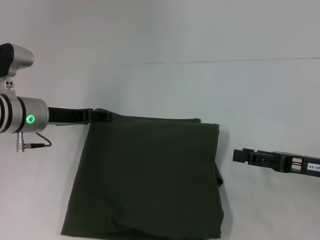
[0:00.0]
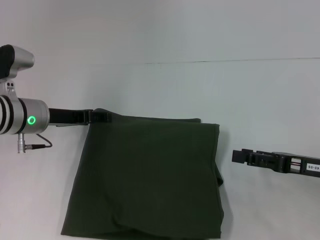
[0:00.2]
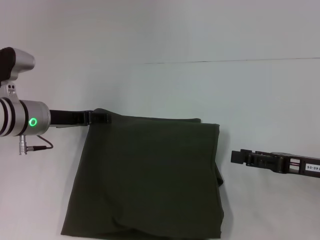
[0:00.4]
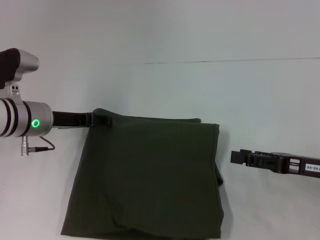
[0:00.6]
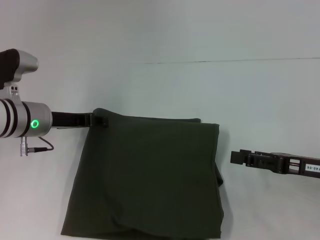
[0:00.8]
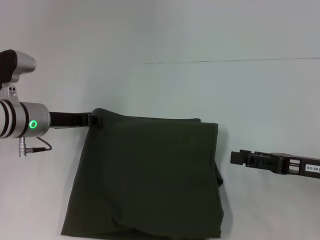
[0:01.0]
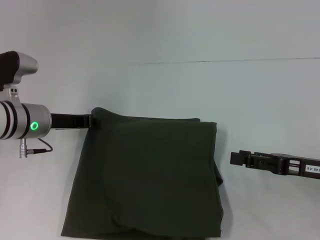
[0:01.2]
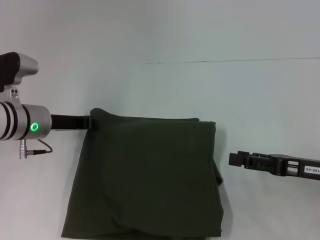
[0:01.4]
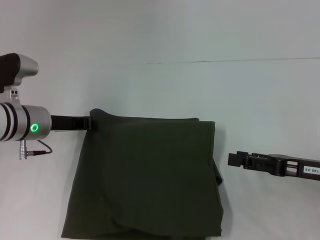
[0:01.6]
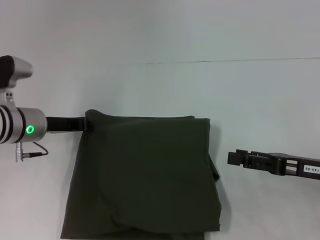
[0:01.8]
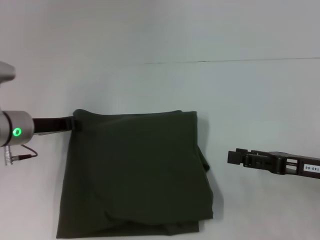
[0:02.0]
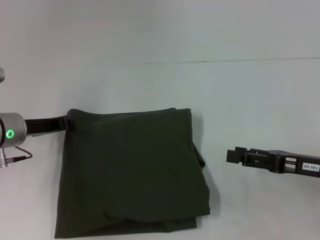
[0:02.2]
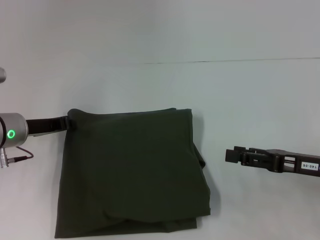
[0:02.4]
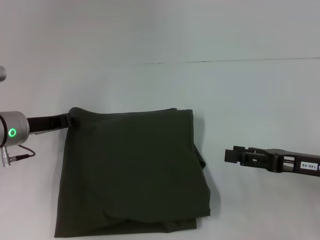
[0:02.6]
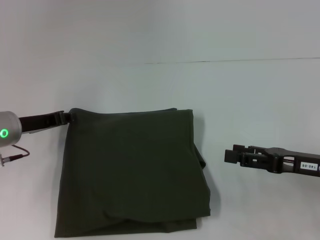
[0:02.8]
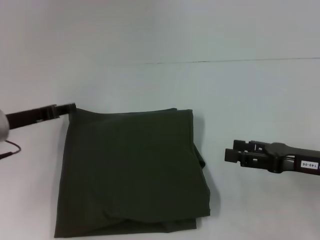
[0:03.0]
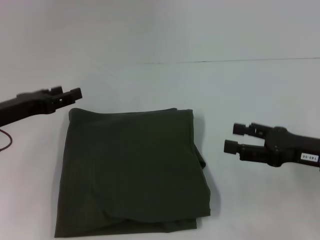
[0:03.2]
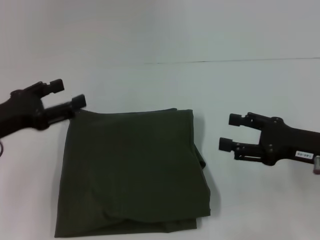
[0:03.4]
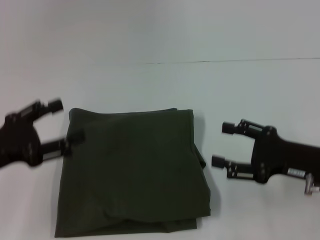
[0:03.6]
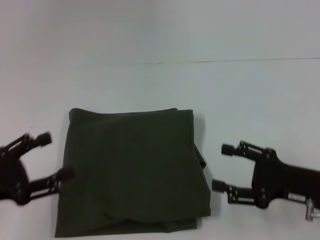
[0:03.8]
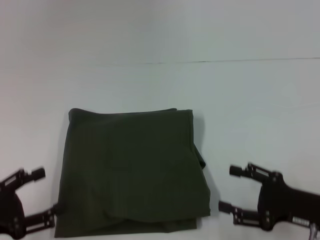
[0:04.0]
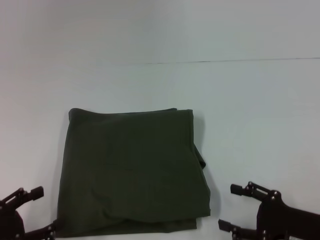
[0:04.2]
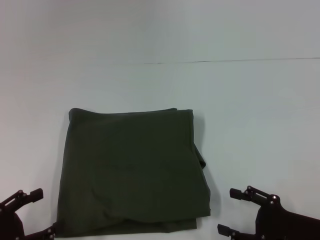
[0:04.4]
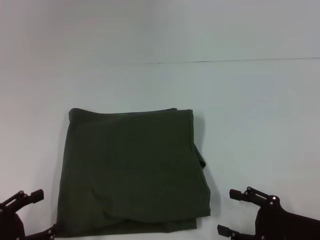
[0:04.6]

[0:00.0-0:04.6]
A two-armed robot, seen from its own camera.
0:00.0 to 0:01.6: The left gripper closes up.
0:01.6 to 0:03.0: The left gripper goes some 5 cm to the left.
0:03.0 to 0:04.6: The right gripper shifts approximately 10 cm backward and downward, while the left gripper moves backward, about 20 cm, and opens up.

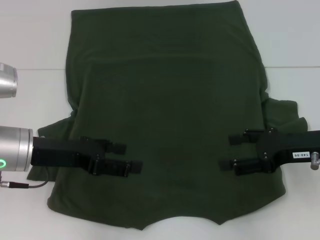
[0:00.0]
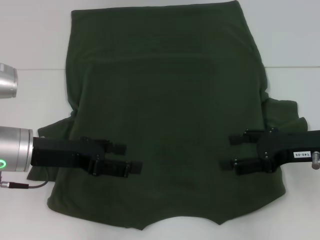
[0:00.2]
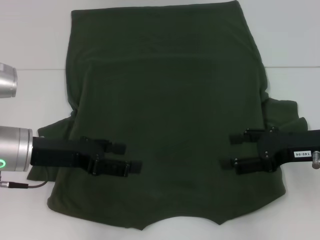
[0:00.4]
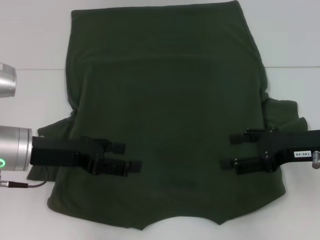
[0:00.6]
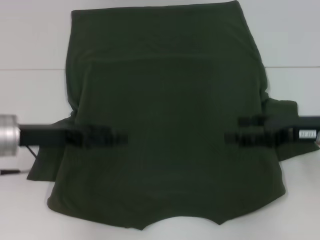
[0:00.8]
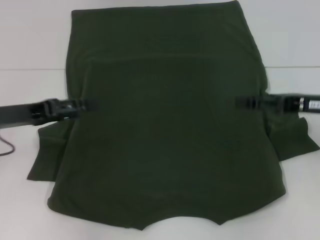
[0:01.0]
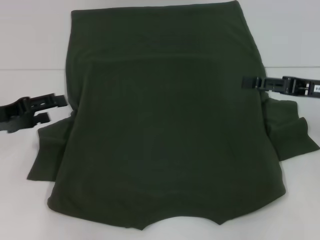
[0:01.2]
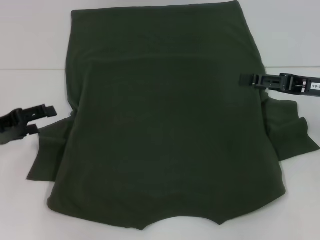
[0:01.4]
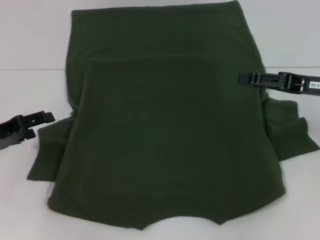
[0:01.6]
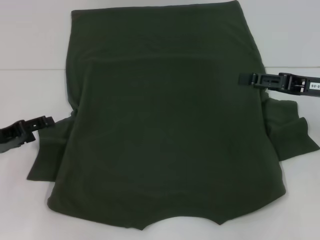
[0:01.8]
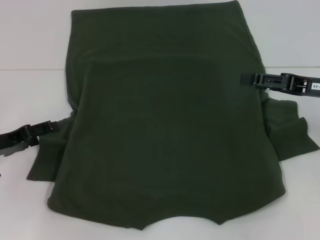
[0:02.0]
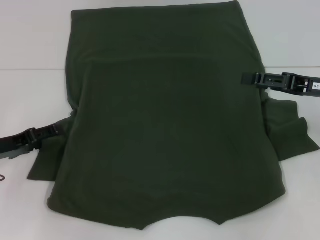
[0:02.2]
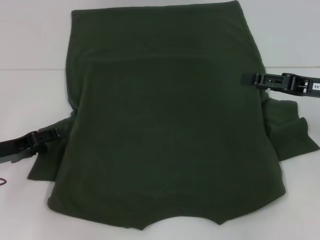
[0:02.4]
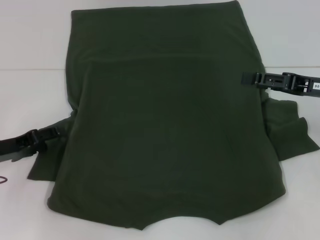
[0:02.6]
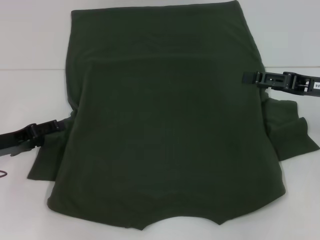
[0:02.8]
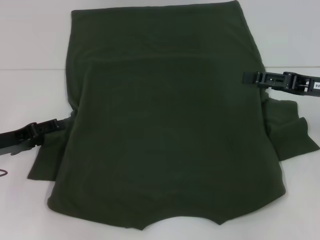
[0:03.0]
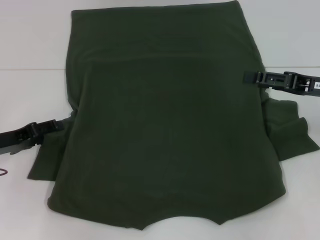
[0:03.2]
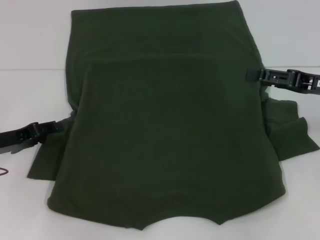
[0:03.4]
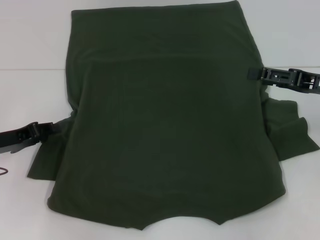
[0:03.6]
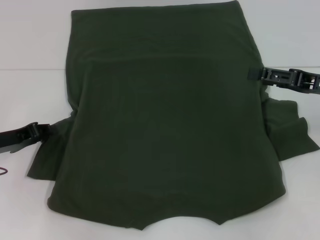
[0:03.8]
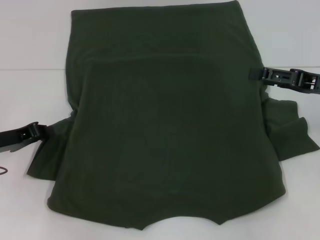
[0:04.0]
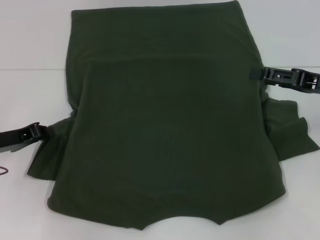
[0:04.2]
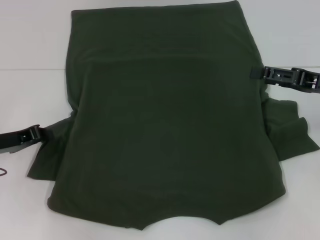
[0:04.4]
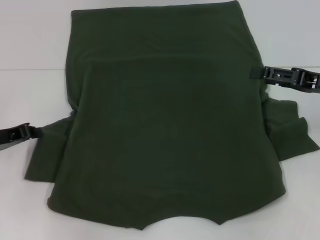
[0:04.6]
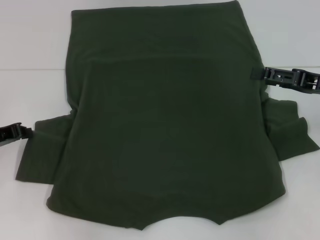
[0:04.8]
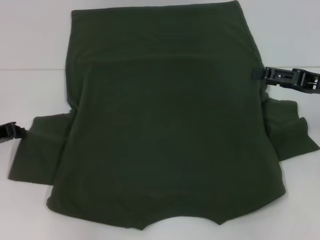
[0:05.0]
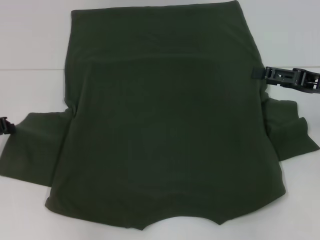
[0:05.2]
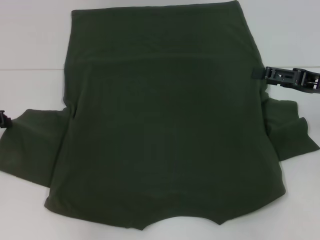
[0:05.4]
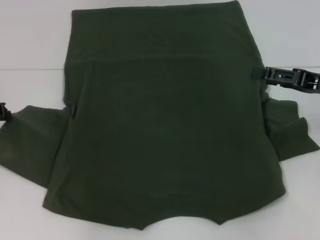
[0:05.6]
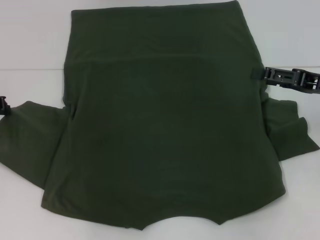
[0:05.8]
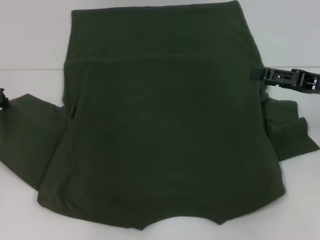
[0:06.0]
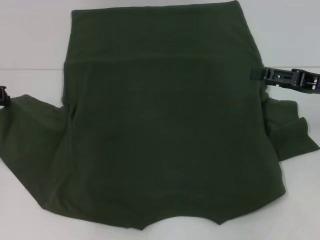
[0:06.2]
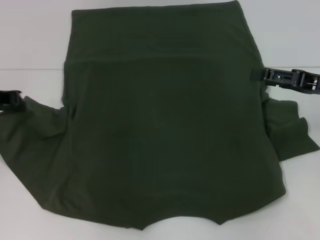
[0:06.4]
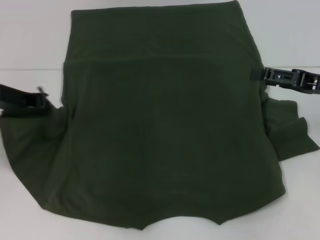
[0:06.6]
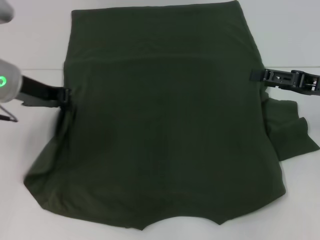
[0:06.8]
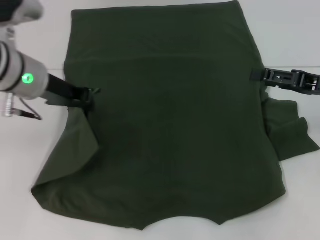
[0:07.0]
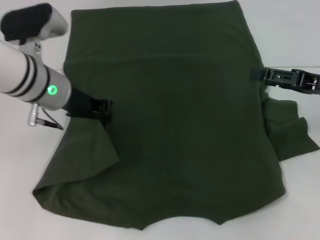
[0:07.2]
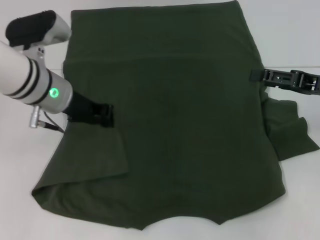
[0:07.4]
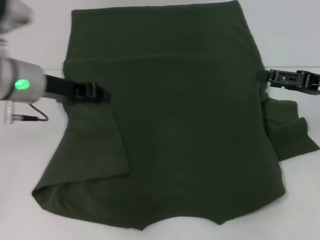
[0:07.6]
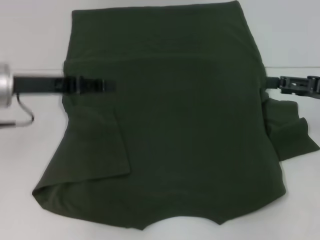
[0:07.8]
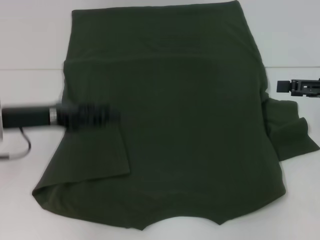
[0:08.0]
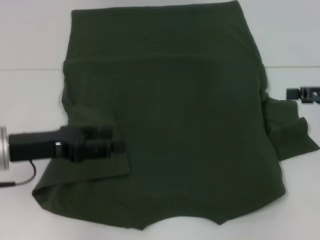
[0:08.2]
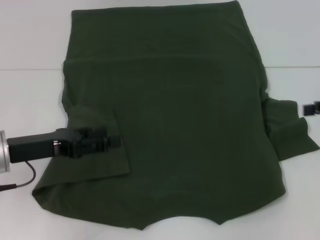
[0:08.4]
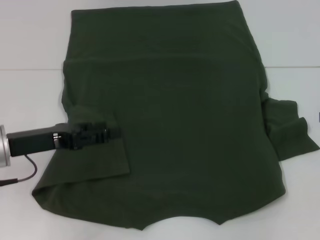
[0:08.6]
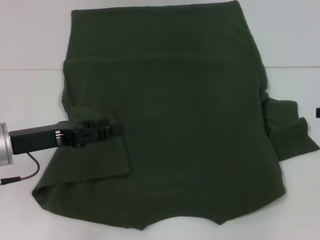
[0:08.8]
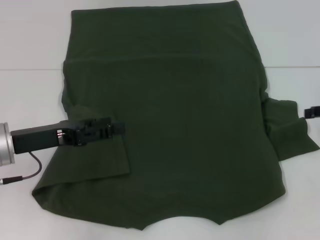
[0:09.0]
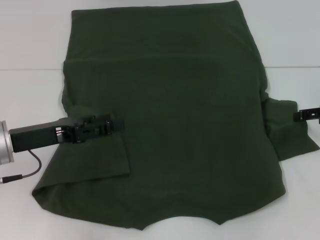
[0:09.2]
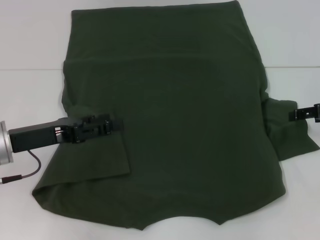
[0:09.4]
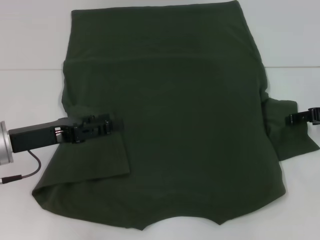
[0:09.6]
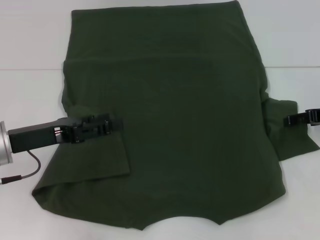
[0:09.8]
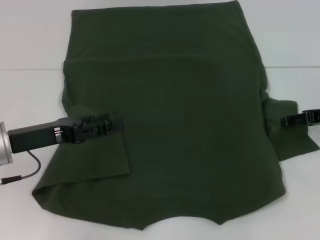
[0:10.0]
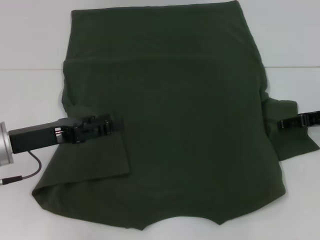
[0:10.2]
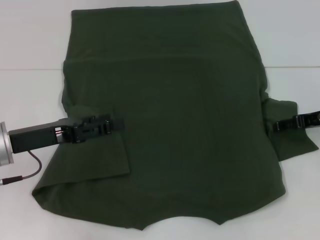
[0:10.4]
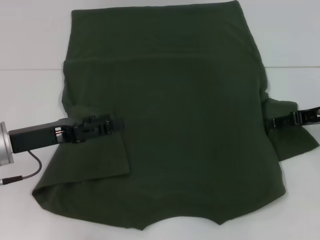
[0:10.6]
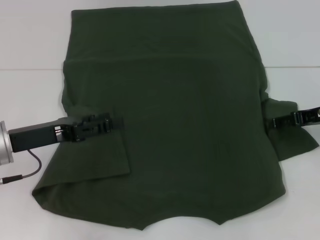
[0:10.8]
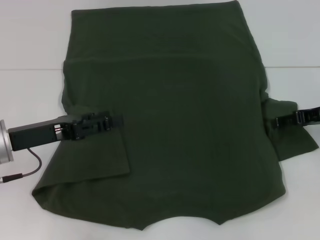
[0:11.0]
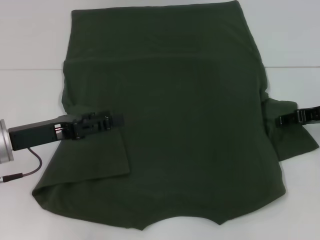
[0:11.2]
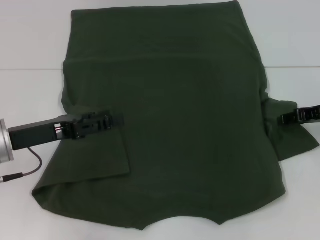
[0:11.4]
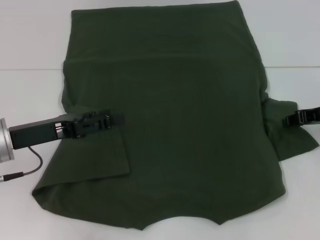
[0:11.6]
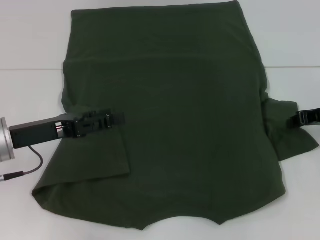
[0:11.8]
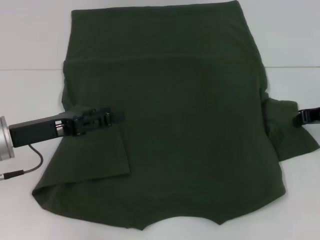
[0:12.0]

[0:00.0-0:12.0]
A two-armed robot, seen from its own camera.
Step, 0:00.0 to 0:07.8: Fold the bottom left sleeve with your left hand.
0:00.0 to 0:01.6: The left gripper travels to the left by some 10 cm. The right gripper ends up some 5 cm from where it was.
0:01.6 to 0:03.0: The grippers move only a little.
0:03.0 to 0:04.4: The left gripper closes up.
0:04.4 to 0:06.0: The left gripper shifts about 10 cm upward and forward.
0:06.0 to 0:07.6: The left gripper is displaced to the right by approximately 10 cm.
0:07.6 to 0:09.0: The left gripper goes about 10 cm backward and downward, and opens up. Meanwhile the right gripper moves to the right, approximately 5 cm.
0:09.0 to 0:10.4: The right gripper travels to the left by about 5 cm.
0:10.4 to 0:12.0: The right gripper closes.

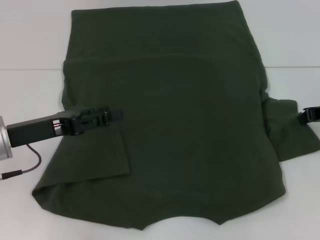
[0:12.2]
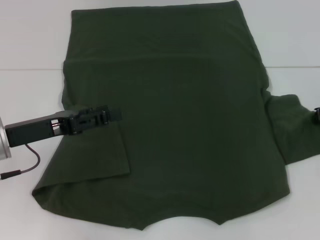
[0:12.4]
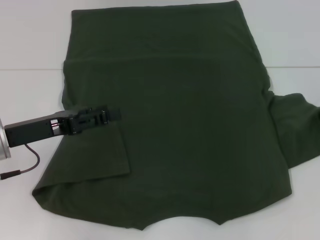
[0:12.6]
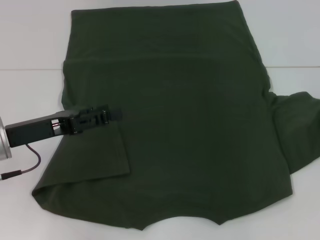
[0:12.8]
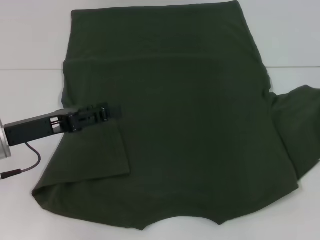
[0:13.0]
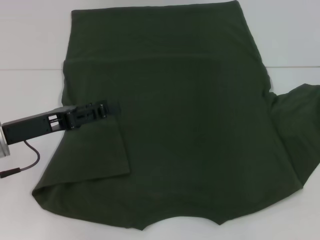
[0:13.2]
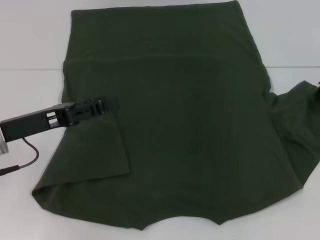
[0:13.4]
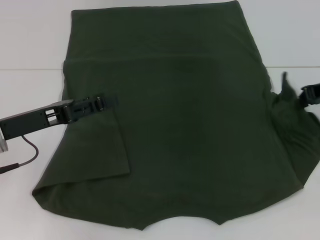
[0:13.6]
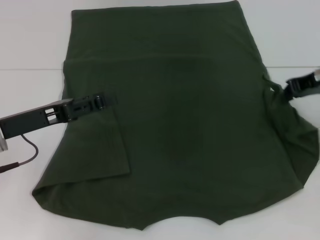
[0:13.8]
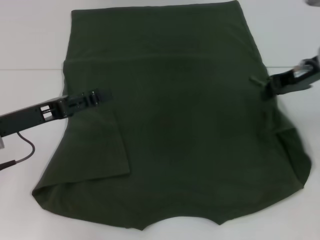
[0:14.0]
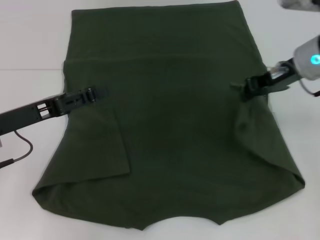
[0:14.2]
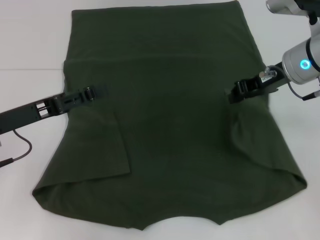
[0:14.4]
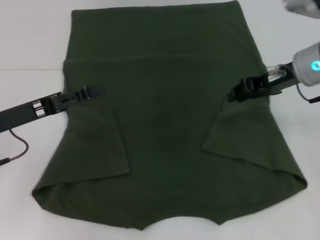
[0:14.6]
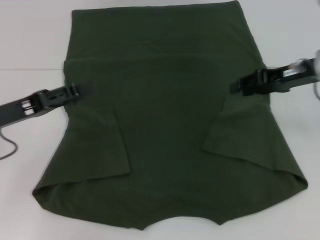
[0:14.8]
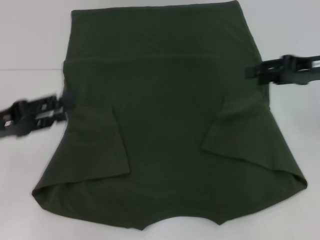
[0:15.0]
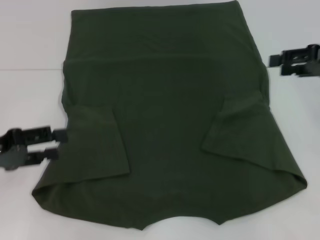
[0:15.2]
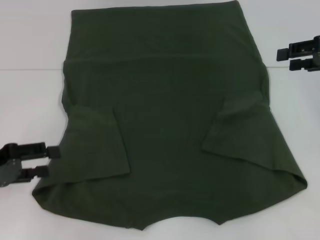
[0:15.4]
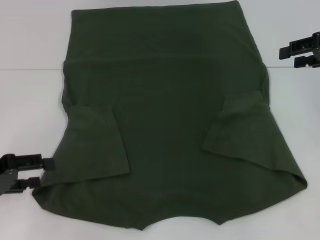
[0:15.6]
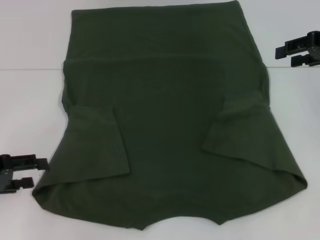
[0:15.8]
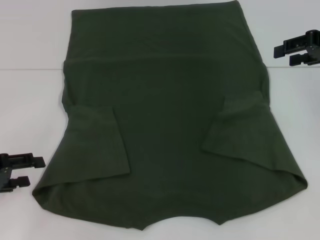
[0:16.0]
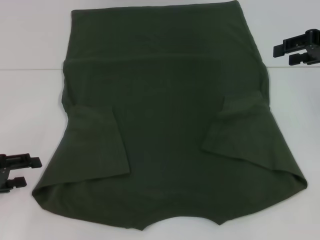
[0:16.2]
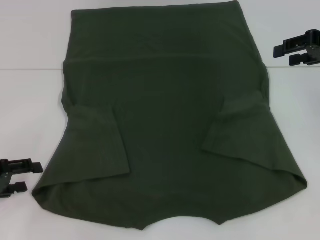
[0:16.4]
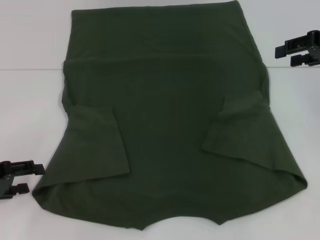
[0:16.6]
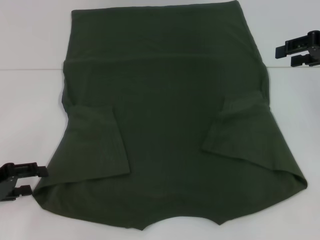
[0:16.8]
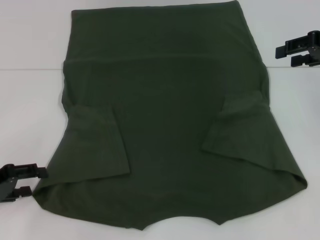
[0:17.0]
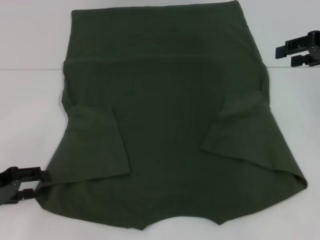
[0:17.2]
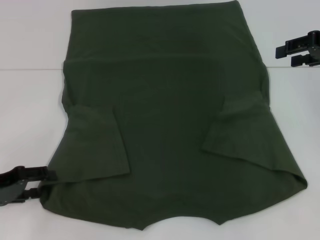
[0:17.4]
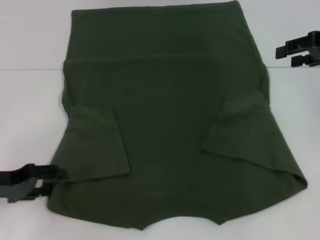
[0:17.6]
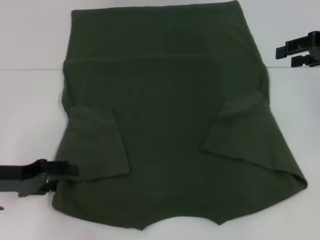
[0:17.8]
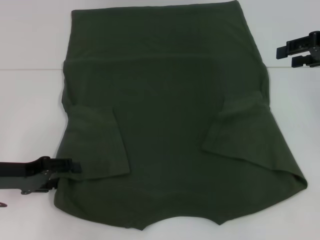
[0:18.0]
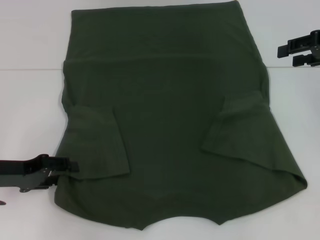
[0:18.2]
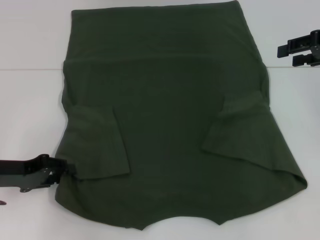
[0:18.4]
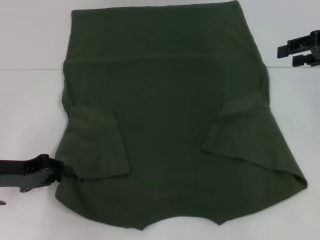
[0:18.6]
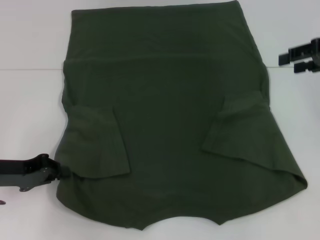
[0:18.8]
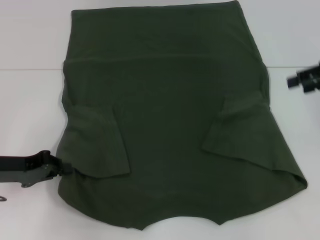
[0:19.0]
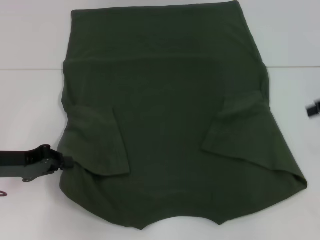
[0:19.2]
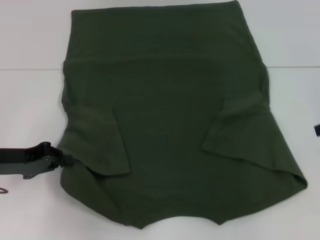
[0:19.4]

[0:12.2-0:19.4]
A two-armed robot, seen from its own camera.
Step, 0:12.2 to 0:15.4: Fold the bottom right sleeve with your right hand.
Step, 0:15.6 to 0:19.2: Grab the bottom left corner with your left hand.
0:12.2 to 0:13.6: The right gripper heads upward, covering approximately 5 cm.
0:13.6 to 0:15.0: The right gripper moves some 10 cm to the left and comes back, and opens up, while the left gripper is displaced to the left by approximately 5 cm.
0:15.0 to 0:16.6: The right gripper shifts by roughly 5 cm. The left gripper shifts roughly 5 cm downward.
0:16.6 to 0:18.0: The left gripper changes place by approximately 5 cm.
0:18.0 to 0:19.4: The right gripper shifts by about 5 cm, while the left gripper closes up.
